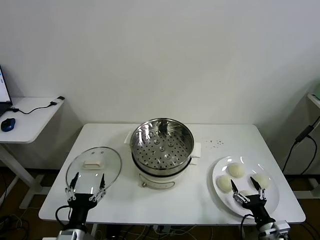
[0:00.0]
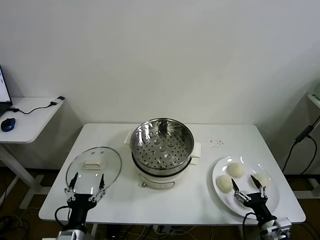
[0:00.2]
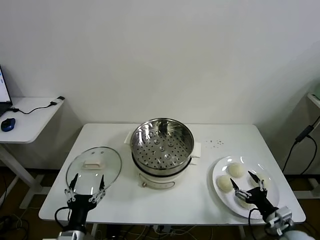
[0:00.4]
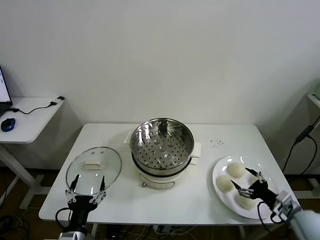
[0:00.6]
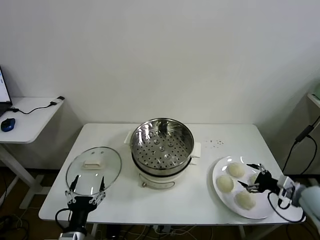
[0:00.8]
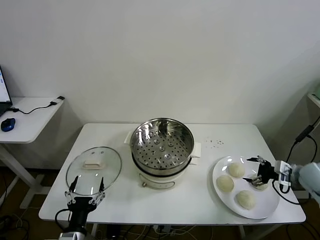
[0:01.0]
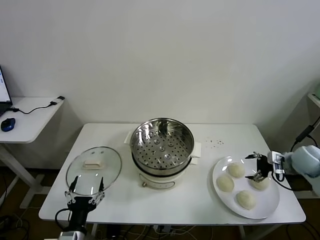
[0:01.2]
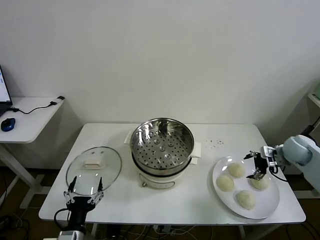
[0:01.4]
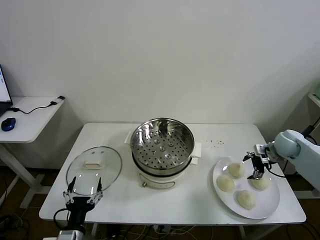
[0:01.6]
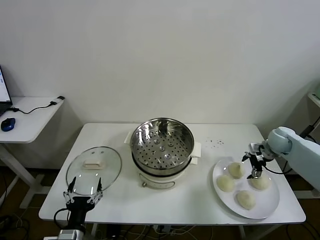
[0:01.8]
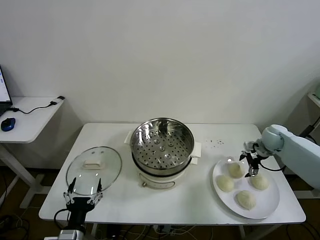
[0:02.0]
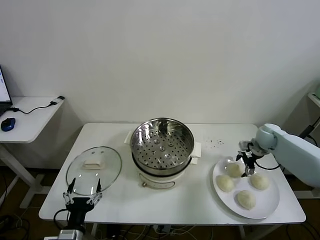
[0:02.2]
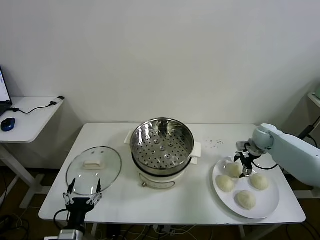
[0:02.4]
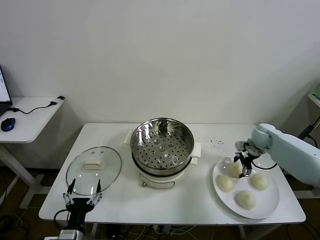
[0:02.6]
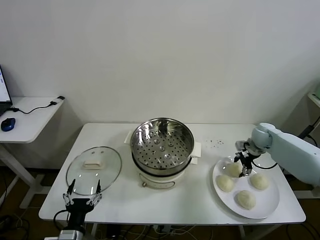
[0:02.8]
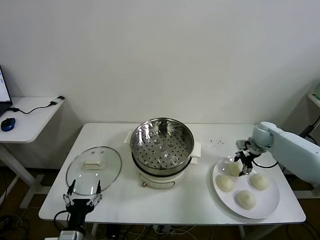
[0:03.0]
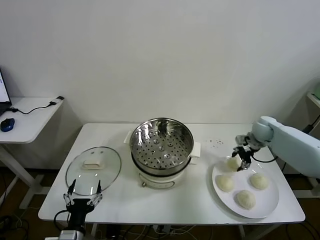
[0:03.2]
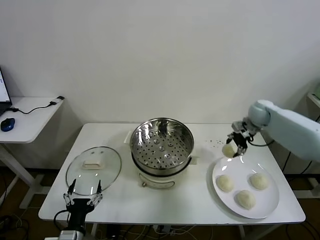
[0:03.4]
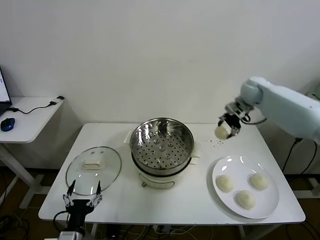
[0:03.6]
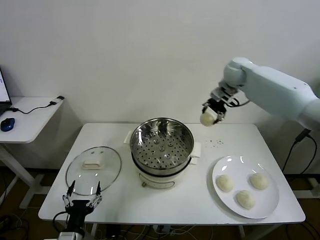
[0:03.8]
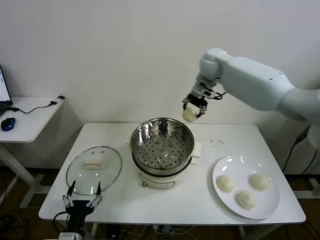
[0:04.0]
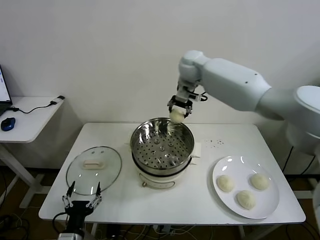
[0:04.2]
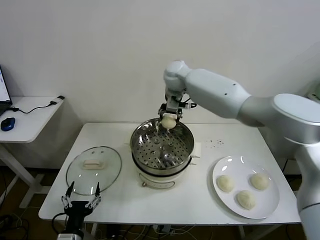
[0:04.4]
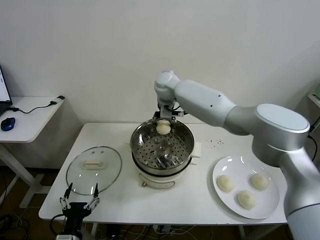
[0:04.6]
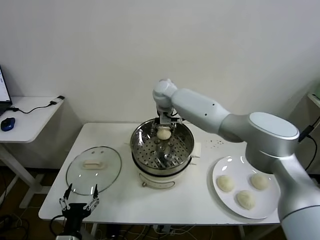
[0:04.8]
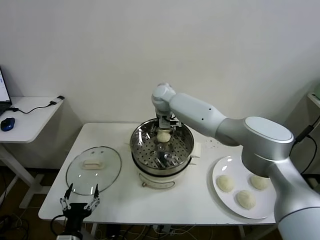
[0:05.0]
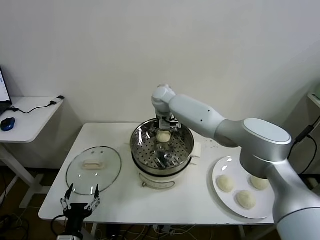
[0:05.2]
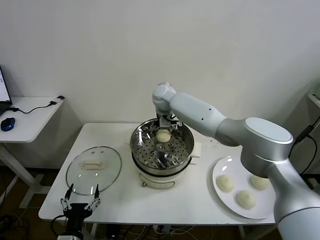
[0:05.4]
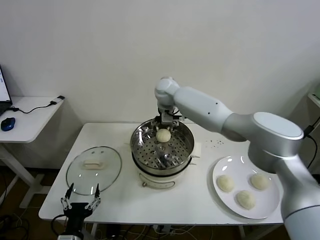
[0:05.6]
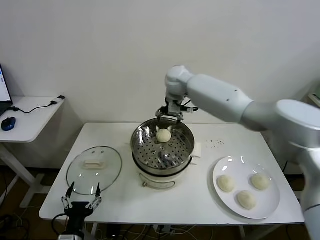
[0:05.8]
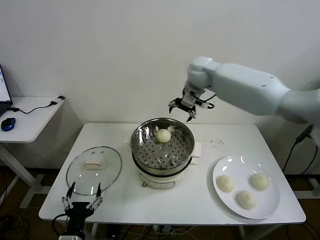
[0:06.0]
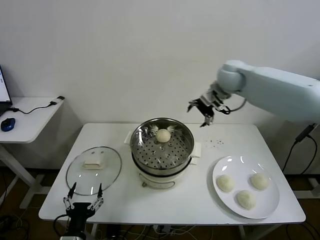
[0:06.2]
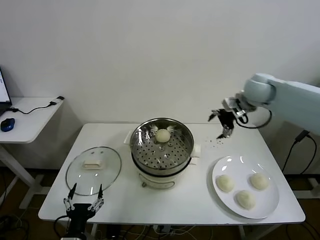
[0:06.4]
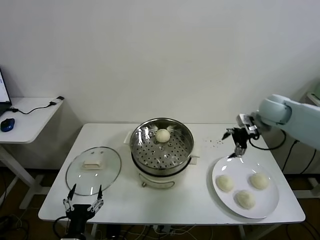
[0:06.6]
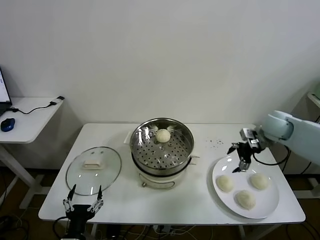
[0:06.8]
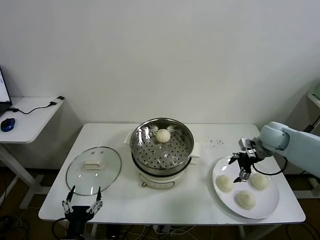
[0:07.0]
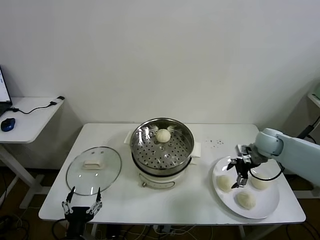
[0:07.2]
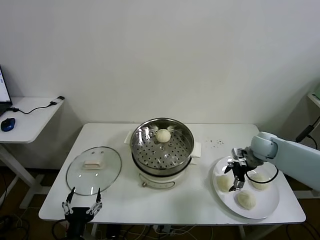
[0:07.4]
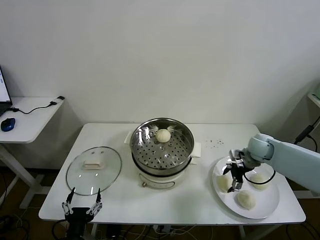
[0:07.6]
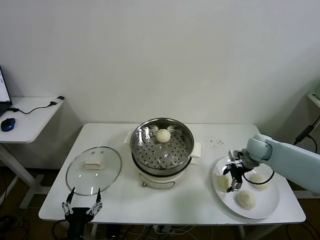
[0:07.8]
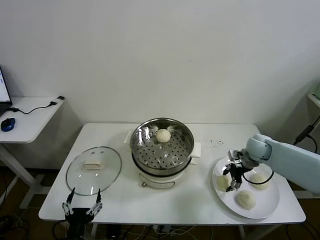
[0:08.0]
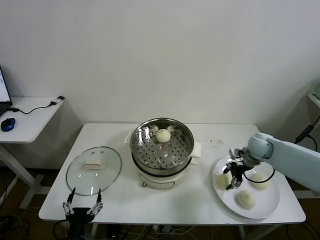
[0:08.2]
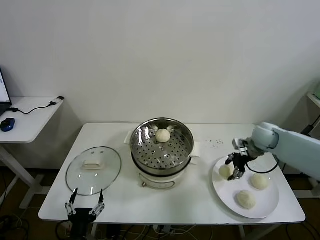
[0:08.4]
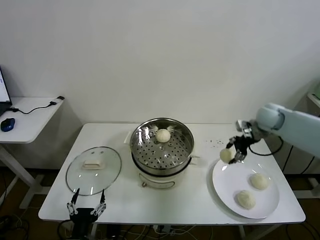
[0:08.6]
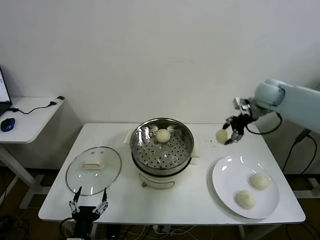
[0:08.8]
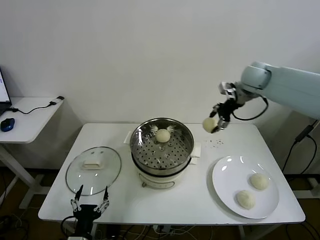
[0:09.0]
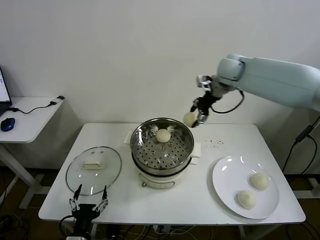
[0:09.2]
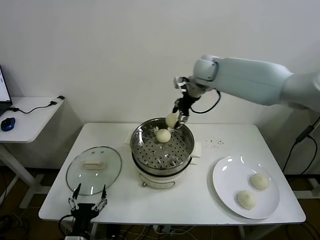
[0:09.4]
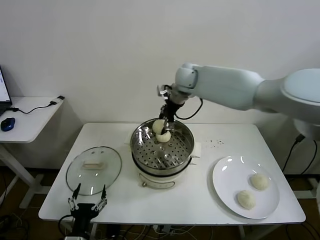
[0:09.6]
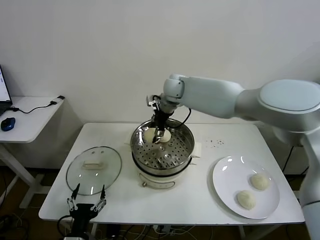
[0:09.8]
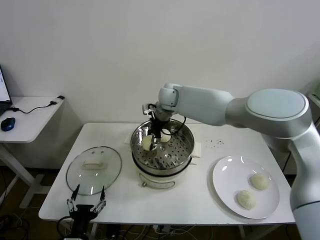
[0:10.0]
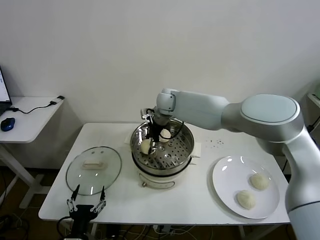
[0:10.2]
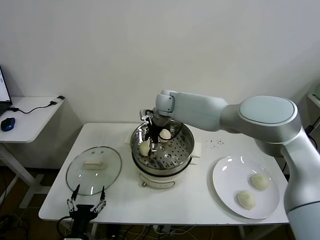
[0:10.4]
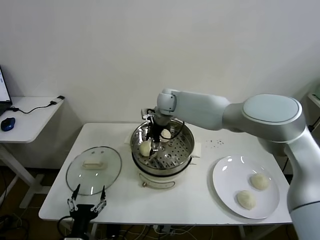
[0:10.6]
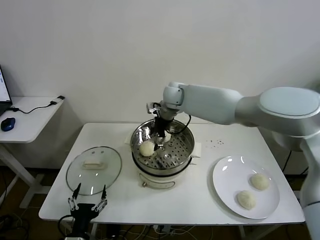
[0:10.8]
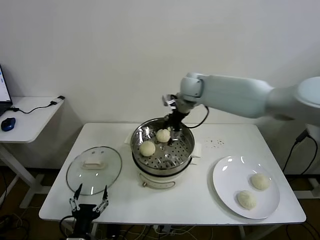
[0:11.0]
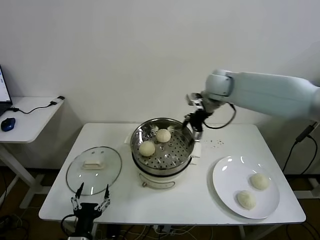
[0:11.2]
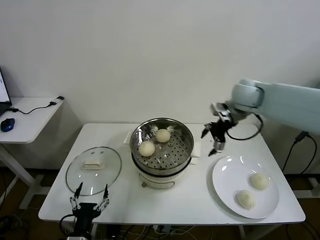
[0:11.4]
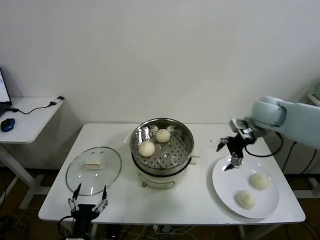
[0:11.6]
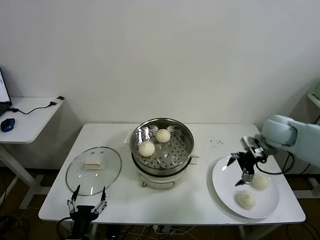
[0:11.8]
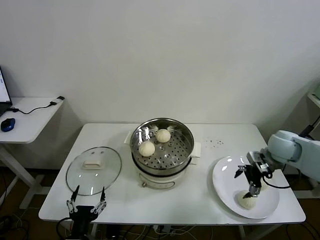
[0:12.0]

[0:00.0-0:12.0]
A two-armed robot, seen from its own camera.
Task of the whole recording: take steamed baozi put them in steamer then cover it.
Step, 0:00.0 to 0:03.0: Grasp the baozi in the plate with right gripper.
Step, 0:03.2 to 0:05.4: Place the baozi on the steamer with right gripper.
Step, 0:05.6 to 0:08.0: Grasp the baozi in the plate with right gripper.
Step, 0:08.4 to 0:10.6: Place the baozi on the steamer with right gripper.
0:01.6 to 0:03.0: The right gripper moves forward, approximately 5 cm, and closes up.
0:03.0 to 0:04.4: The right gripper heads to the left and upward, covering about 40 cm.
0:04.4 to 0:06.0: The right gripper travels to the right by roughly 15 cm, and opens up.
0:06.0 to 0:07.6: The right gripper shifts roughly 35 cm downward, to the right and backward.
0:07.6 to 0:09.0: The right gripper travels upward and forward by roughly 30 cm, and closes.
0:09.0 to 0:10.4: The right gripper goes approximately 30 cm to the left and downward, and opens its fingers.
0:10.4 to 0:12.0: The right gripper travels to the right and backward by some 40 cm.

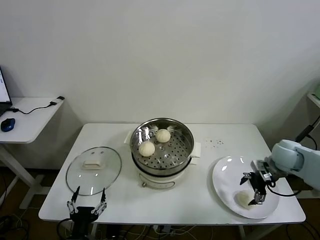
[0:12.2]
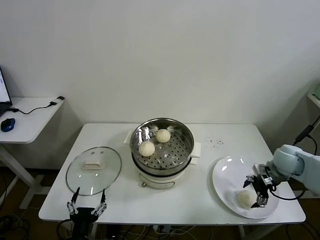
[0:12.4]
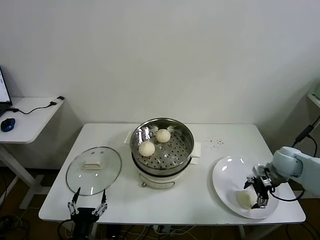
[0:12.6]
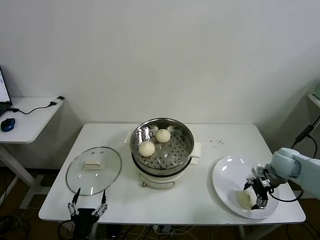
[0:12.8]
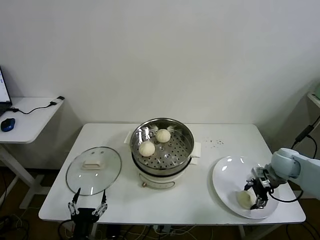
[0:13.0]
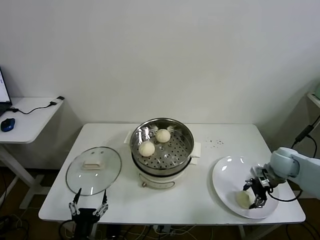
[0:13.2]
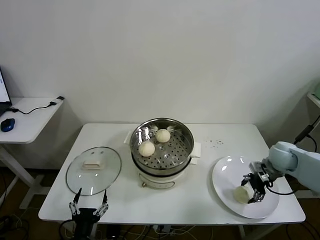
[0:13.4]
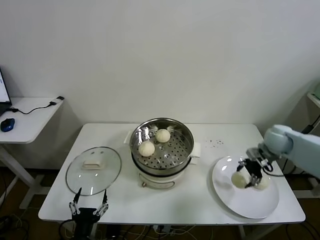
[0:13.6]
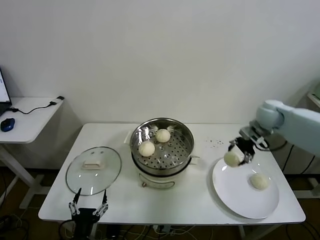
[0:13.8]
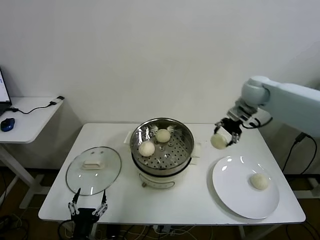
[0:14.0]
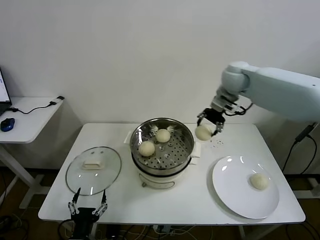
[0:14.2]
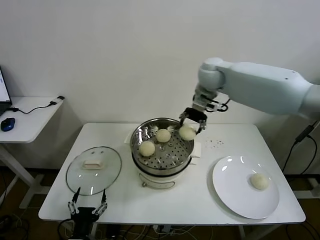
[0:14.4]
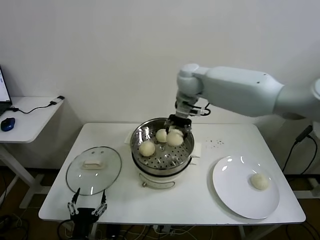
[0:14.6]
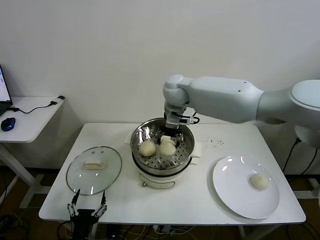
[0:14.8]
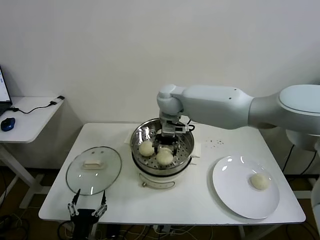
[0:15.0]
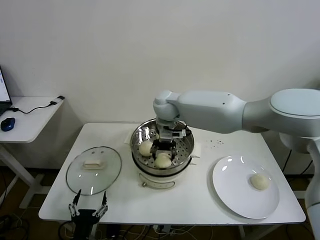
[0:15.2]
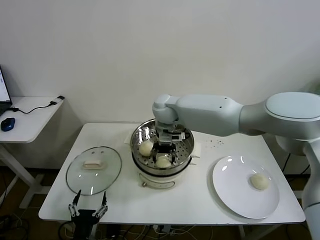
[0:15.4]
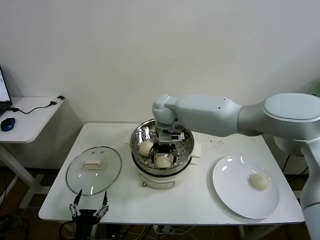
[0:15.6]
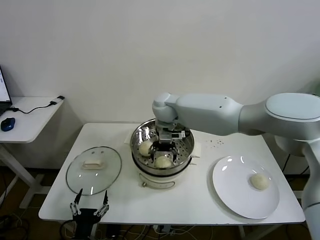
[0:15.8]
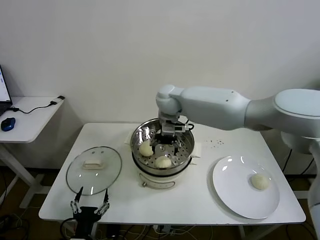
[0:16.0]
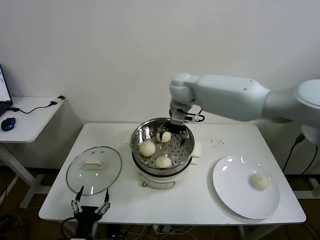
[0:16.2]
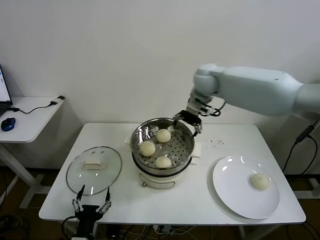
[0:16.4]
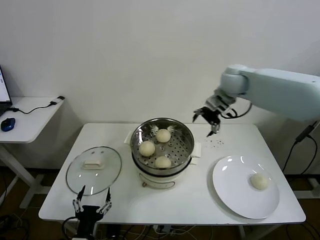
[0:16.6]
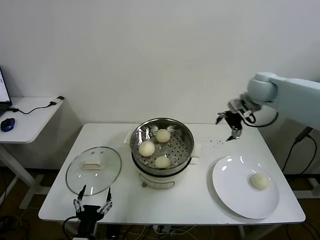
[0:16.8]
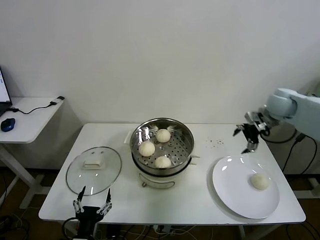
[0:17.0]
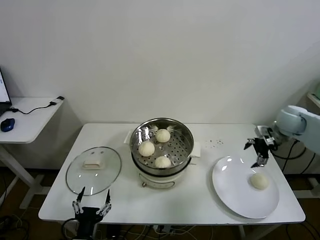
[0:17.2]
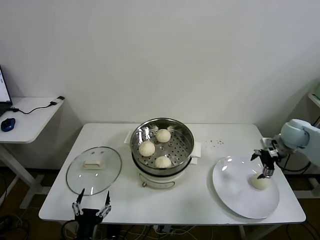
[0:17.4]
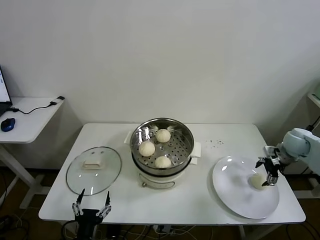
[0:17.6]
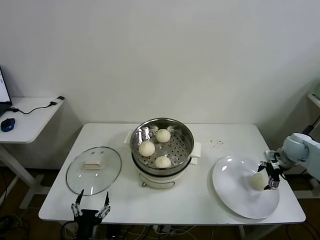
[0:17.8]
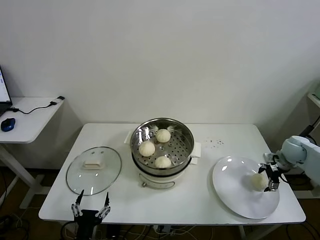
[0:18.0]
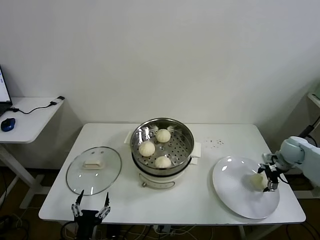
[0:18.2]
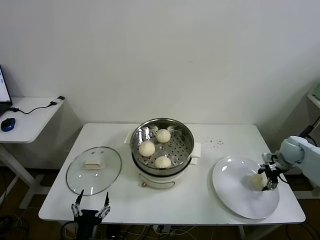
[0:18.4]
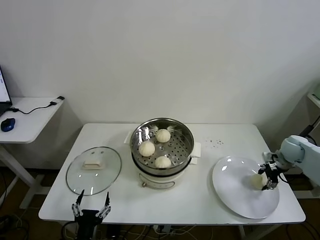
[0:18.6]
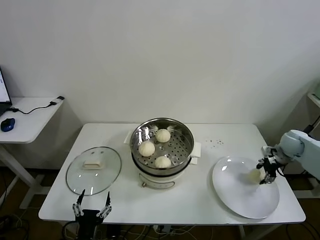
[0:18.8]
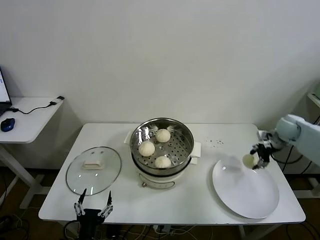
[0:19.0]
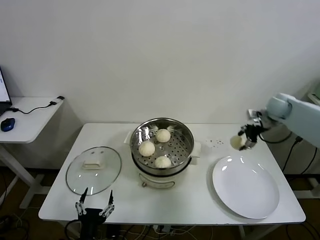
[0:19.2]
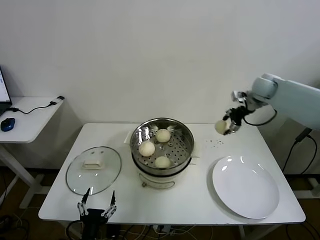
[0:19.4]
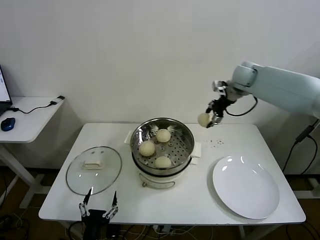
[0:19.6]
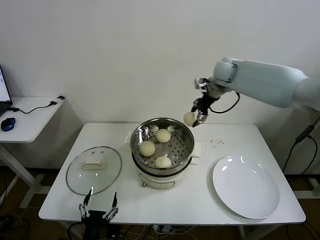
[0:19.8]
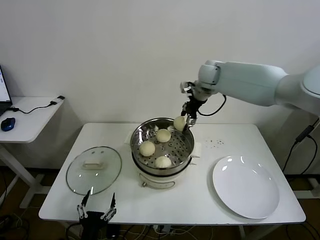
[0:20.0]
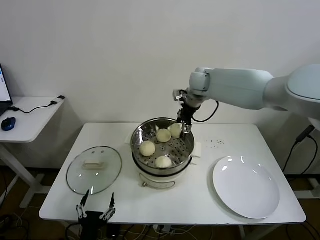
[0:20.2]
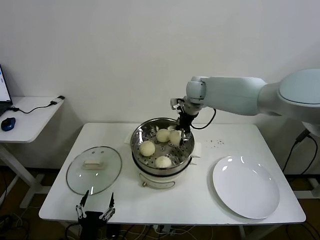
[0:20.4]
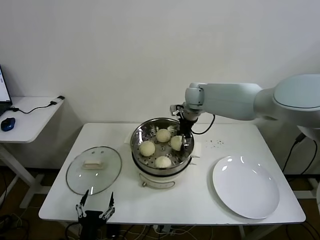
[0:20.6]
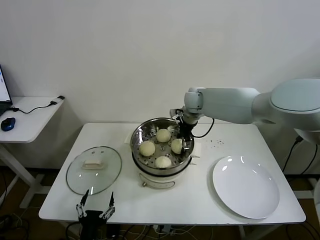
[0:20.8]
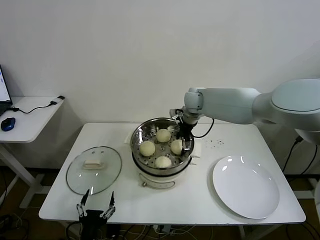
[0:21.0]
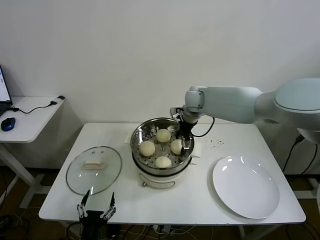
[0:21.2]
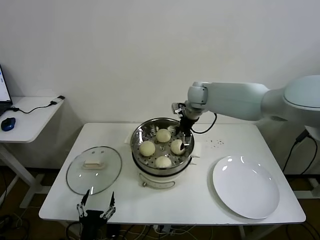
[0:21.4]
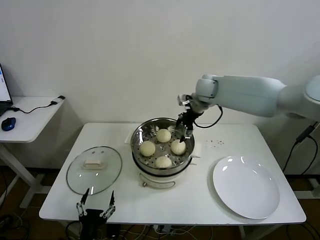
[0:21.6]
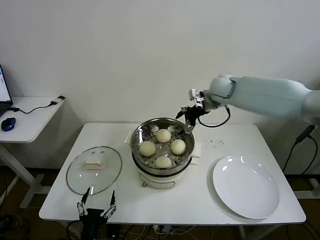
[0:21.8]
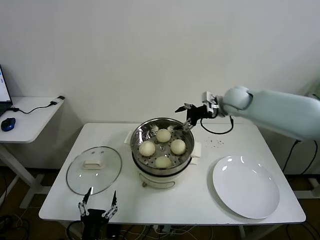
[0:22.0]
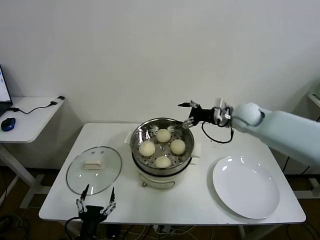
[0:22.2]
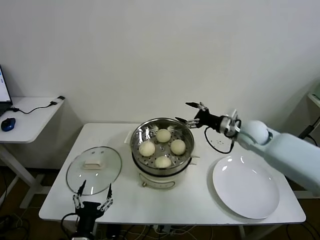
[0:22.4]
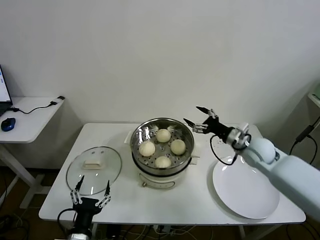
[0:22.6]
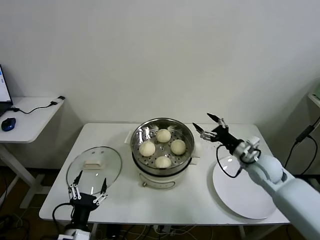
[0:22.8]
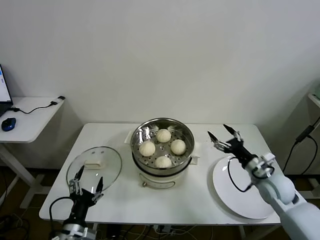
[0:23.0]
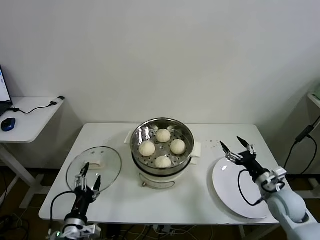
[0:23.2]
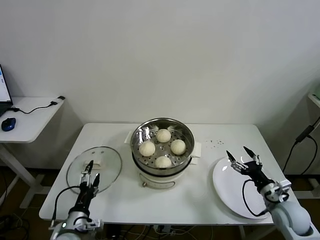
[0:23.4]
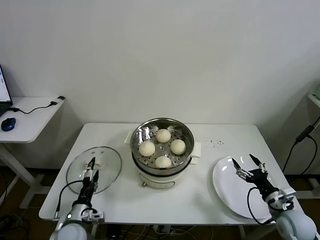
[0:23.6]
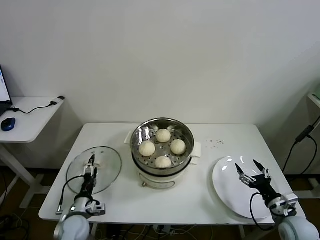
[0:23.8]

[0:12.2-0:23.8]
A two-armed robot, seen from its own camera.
Task of the whole recording: take steamed baozi put them in steamer then cover it.
Step, 0:13.4 to 0:16.2: Place the baozi on the steamer with right gripper.
Step, 0:16.4 to 0:18.6: Grasp the baozi in the plate with right gripper.
Step, 0:18.8 to 0:21.2: Place the baozi on the steamer with right gripper.
0:12.2 to 0:13.6: The right gripper heads forward, covering approximately 5 cm, and closes up.
0:13.6 to 0:15.0: The right gripper heads to the left, covering roughly 35 cm.
0:15.0 to 0:16.6: The right gripper travels to the right by roughly 25 cm, and opens its fingers.
0:16.6 to 0:18.0: The right gripper goes approximately 35 cm to the right, downward and backward.
0:18.0 to 0:19.4: The right gripper shifts approximately 25 cm upward, forward and to the left, and closes its fingers.
0:19.4 to 0:21.0: The right gripper heads to the left, covering about 25 cm, and opens up.
0:21.0 to 0:22.4: The right gripper travels to the right and backward by roughly 20 cm.
0:22.4 to 0:23.8: The right gripper is displaced backward, downward and to the right by roughly 30 cm, while the left gripper goes about 15 cm forward, downward and to the left.
